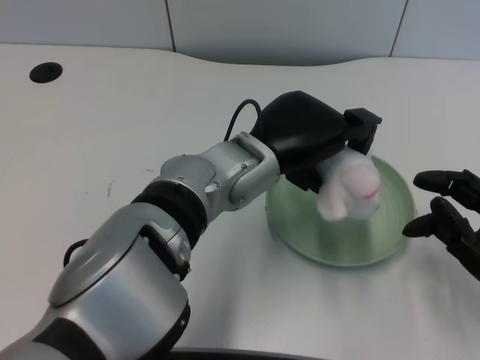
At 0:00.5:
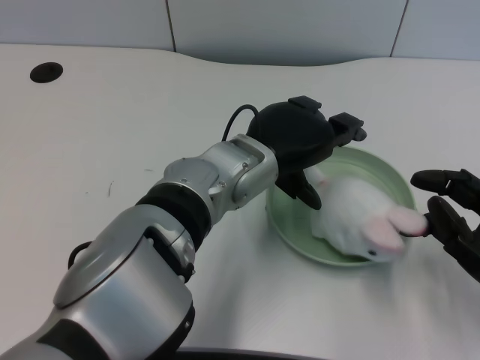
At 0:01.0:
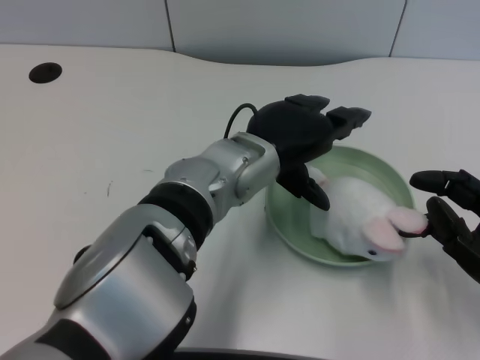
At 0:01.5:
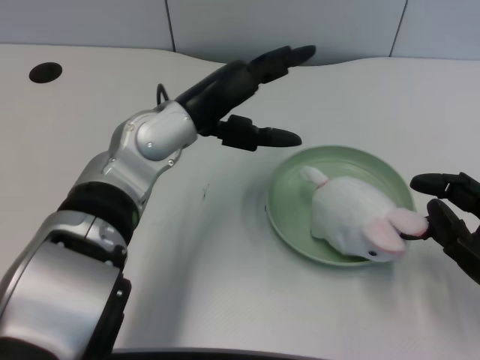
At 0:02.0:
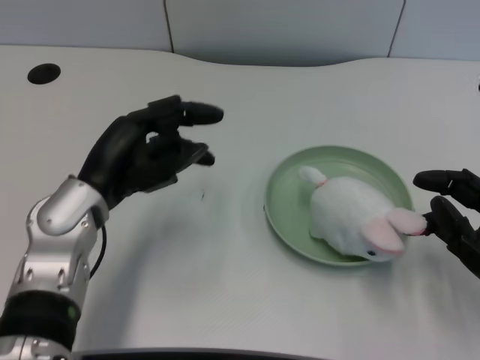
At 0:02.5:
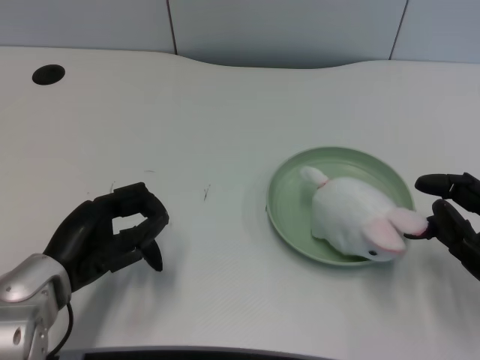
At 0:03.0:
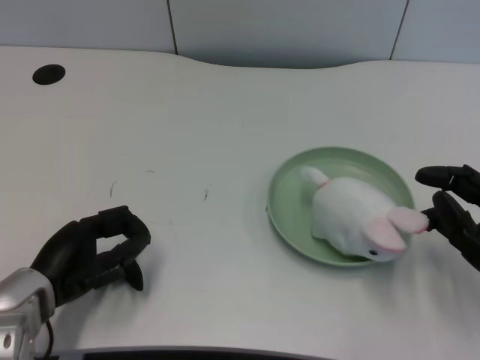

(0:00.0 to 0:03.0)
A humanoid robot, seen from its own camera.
Task of the whole recording: pick up the rabbit doll from the table and place it on the plate.
0:00.0 - 0:01.5: The left hand is displaced to the left by about 10 cm.
0:01.5 - 0:03.0: The left hand heads to the left, downward and backward, covering some 20 cm.

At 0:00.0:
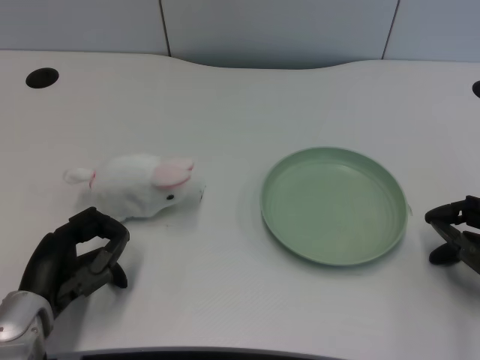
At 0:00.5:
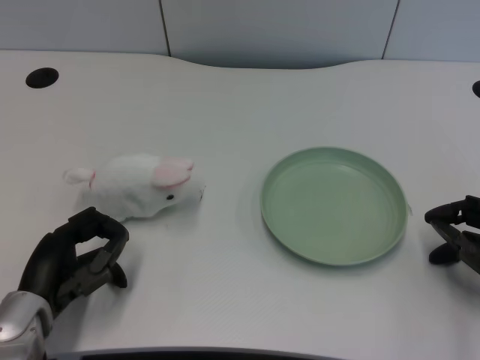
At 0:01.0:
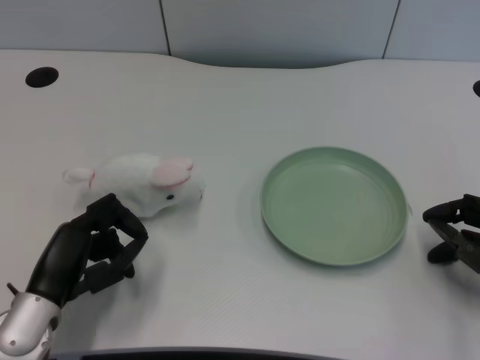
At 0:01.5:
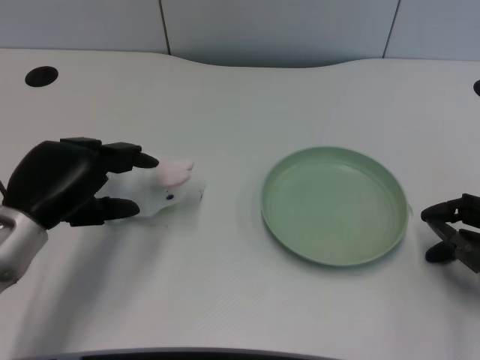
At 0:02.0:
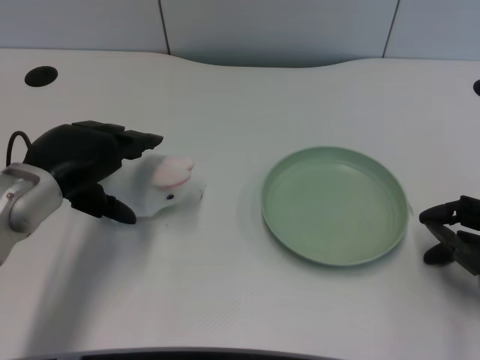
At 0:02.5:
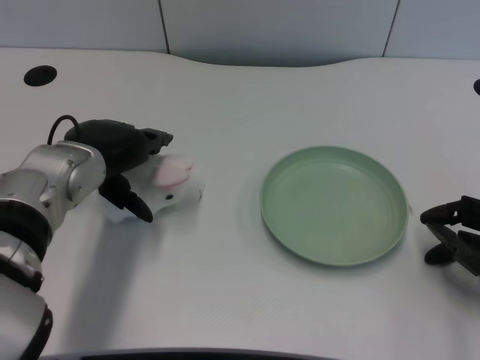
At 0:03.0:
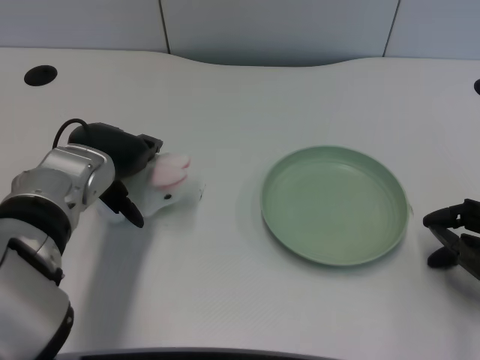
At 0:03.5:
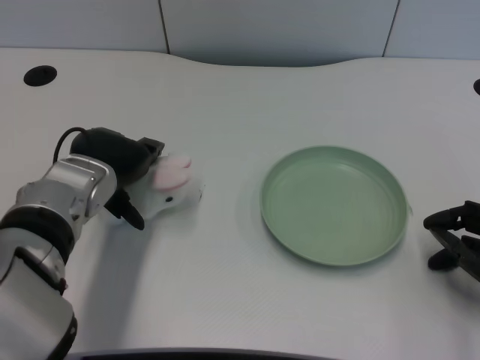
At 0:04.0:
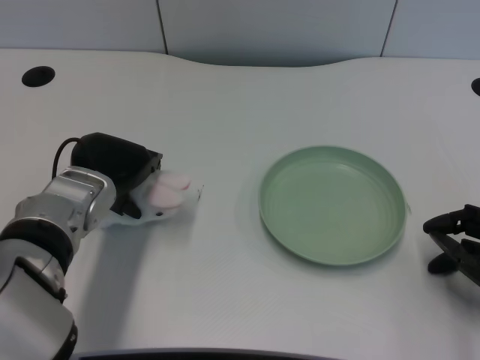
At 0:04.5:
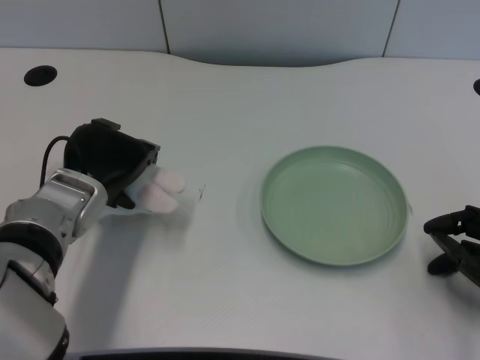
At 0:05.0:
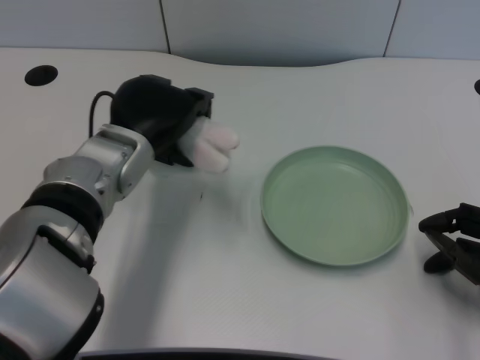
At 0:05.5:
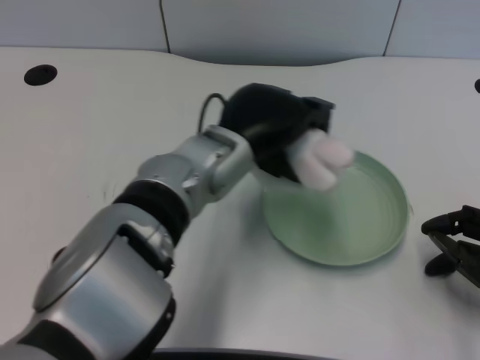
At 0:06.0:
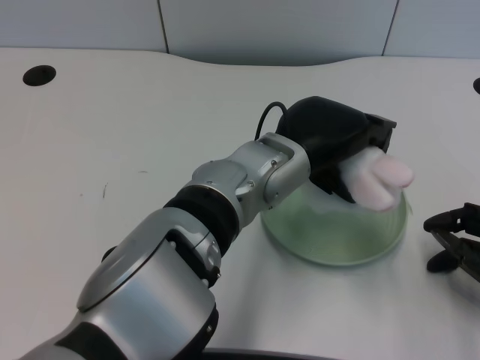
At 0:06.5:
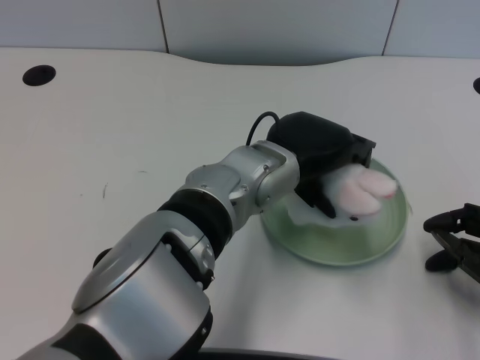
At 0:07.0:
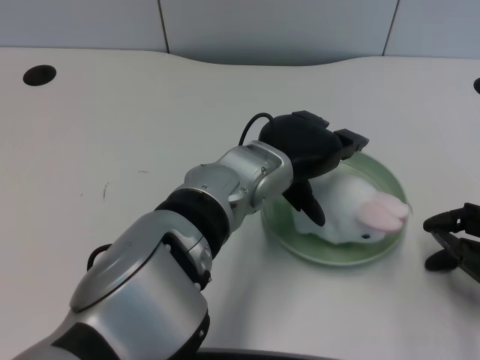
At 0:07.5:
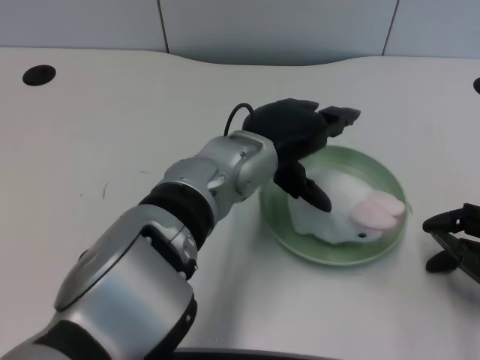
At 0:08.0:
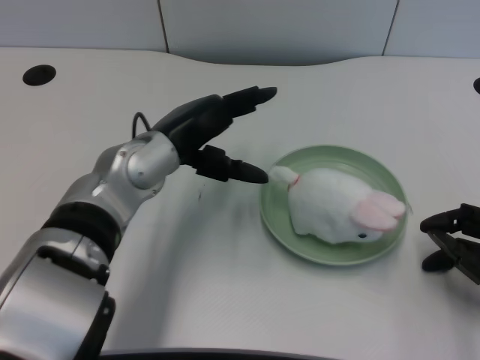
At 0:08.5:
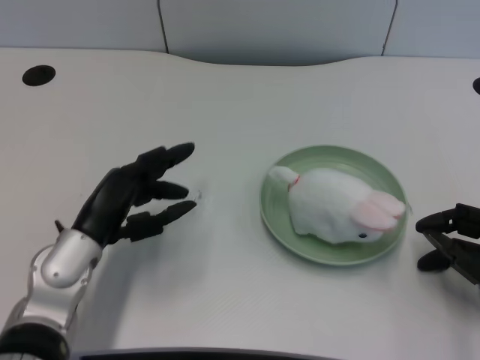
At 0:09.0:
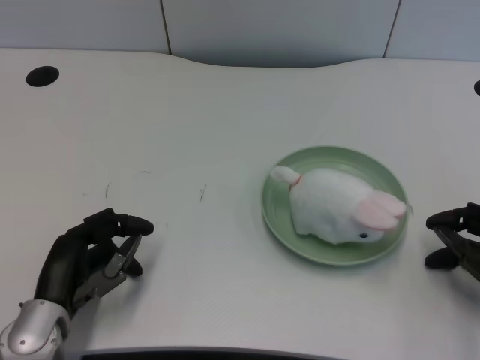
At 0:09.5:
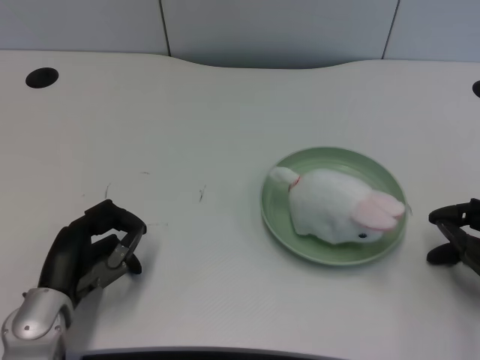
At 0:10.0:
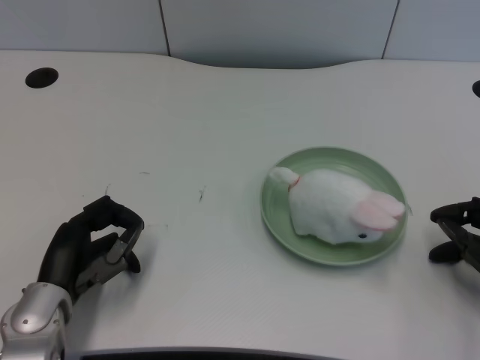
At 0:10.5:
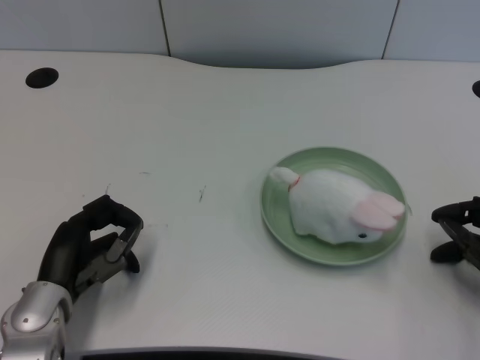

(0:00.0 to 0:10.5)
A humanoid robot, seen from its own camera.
Task of the whole recording: pick up the rabbit doll from the table and place it on the plate.
Step, 0:01.0 - 0:04.0: Grasp the rabbit doll with the left gripper.
Step, 0:04.5 - 0:07.0: Place the rabbit doll into the plate with the left gripper.
0:02.0 - 0:04.0: The left hand moves approximately 5 cm.
0:04.0 - 0:06.5: The left hand goes about 15 cm to the right.
0:06.5 - 0:08.5: The left hand moves to the left and downward, about 20 cm.
0:08.5 - 0:10.5: The left hand shifts by approximately 5 cm.

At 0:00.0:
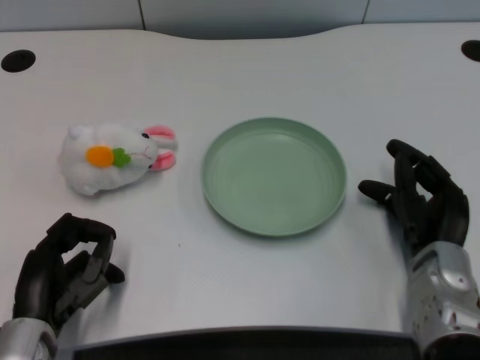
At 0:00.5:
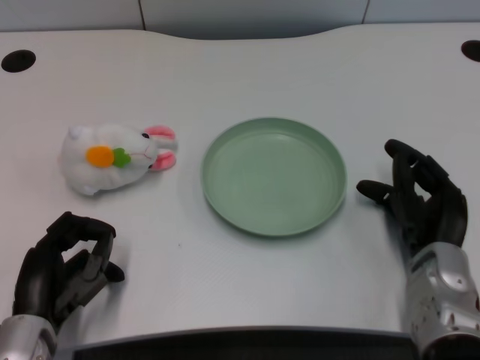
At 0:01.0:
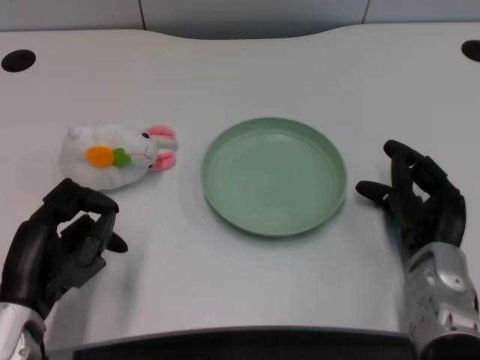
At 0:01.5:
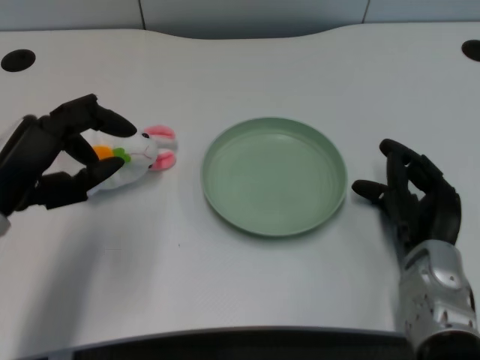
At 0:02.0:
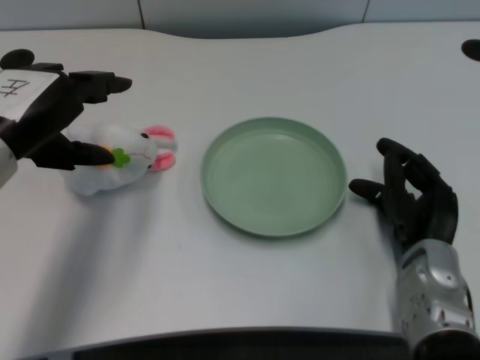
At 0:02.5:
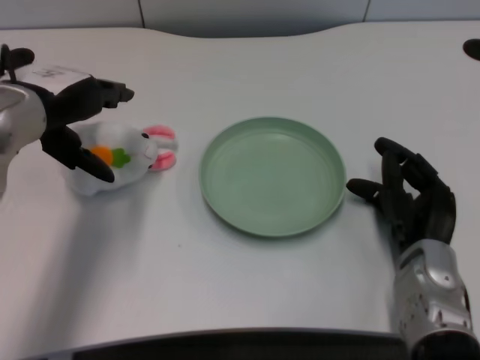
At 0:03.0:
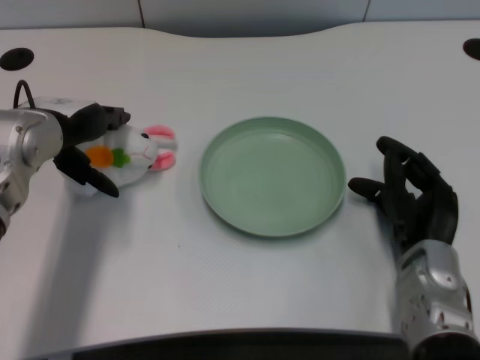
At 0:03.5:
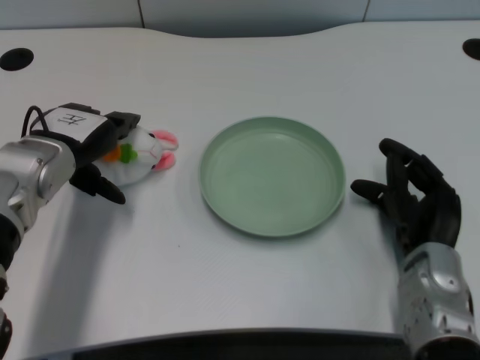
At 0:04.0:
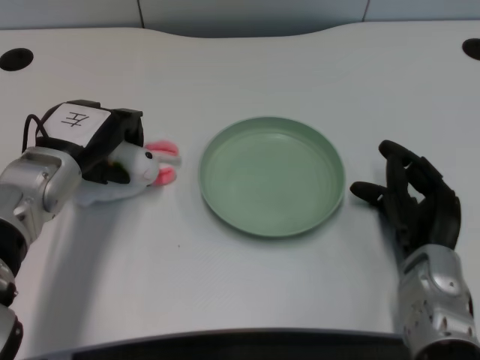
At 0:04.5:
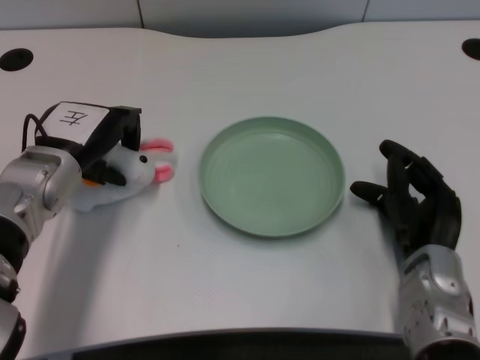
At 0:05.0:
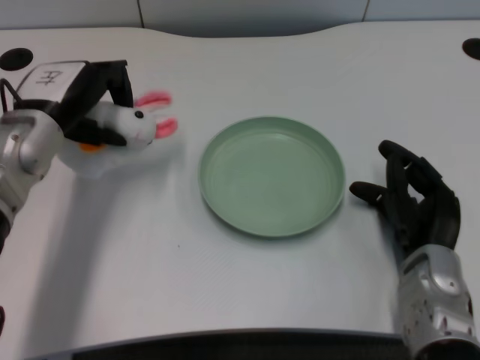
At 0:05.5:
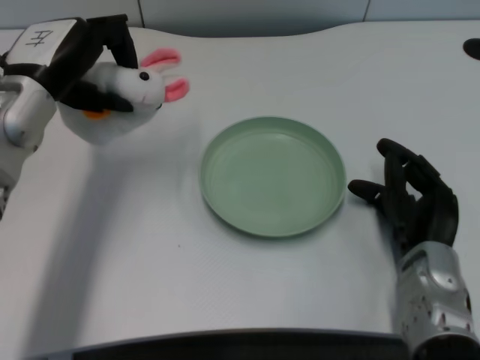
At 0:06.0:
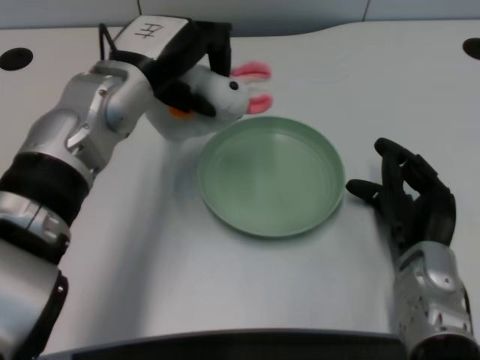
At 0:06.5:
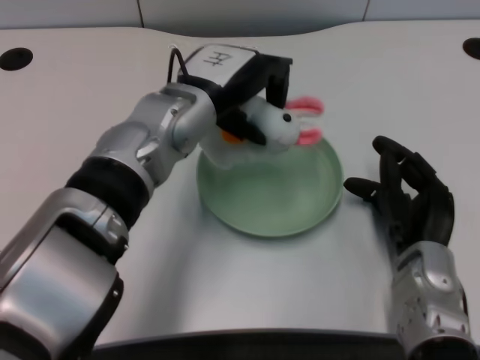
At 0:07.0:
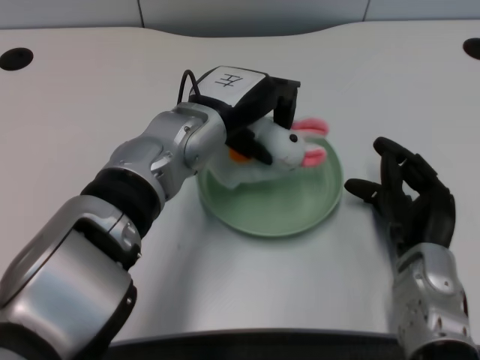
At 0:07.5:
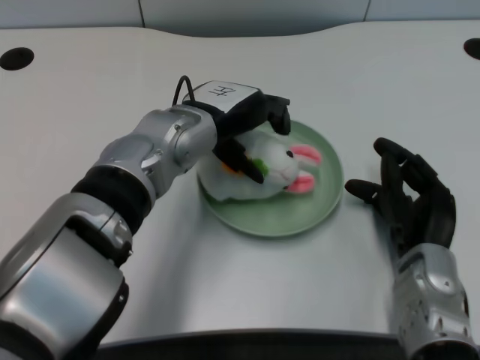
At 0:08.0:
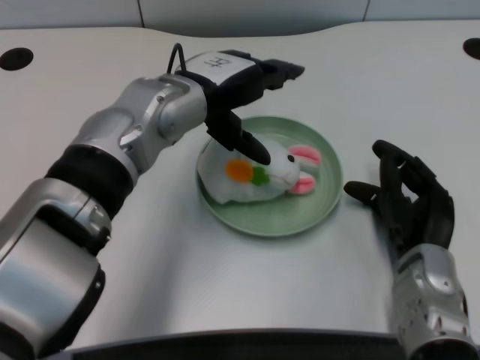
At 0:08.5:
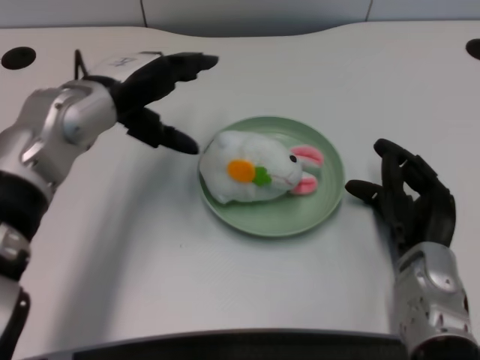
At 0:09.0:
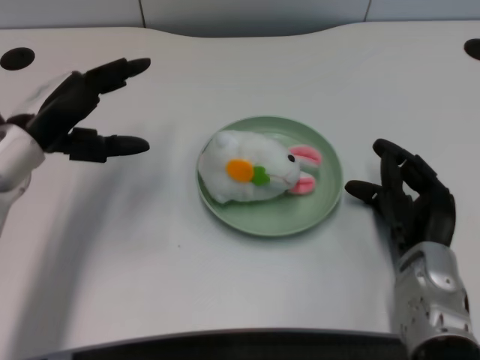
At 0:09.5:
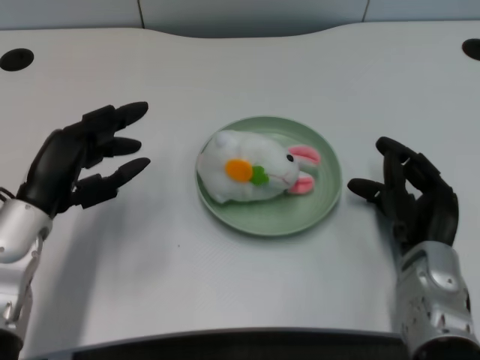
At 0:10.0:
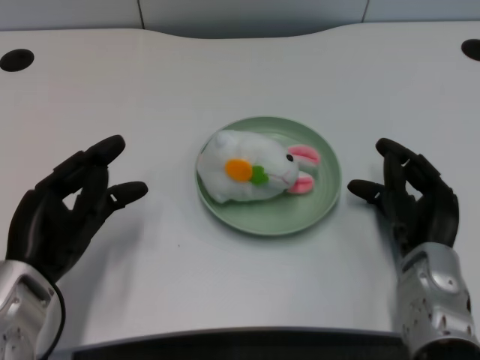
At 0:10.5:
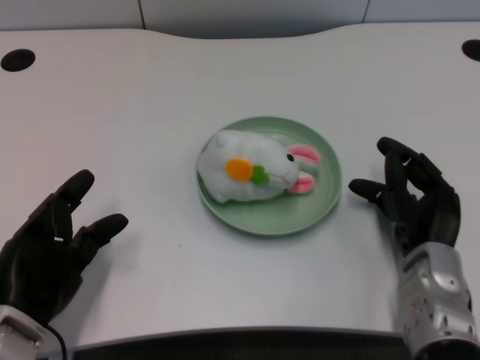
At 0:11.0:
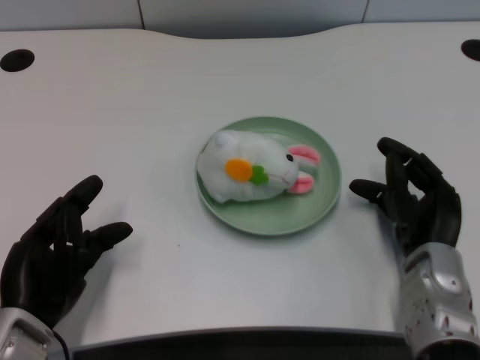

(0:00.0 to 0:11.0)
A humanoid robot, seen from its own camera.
Task of the whole recording: pick up the rabbit doll from the table and place it on the plate.
Step, 0:01.0 - 0:04.5: Grasp the rabbit doll with the left gripper.
Step, 0:05.0 - 0:07.5: Place the rabbit doll into the plate with the left gripper.
0:02.0 - 0:03.5: The left hand is displaced downward and forward by some 10 cm.
0:03.5 - 0:05.5: The left hand heads upward, covering approximately 5 cm.
0:05.5 - 0:07.5: The left hand moves to the right, roughly 15 cm.
0:07.5 - 0:09.0: The left hand goes approximately 15 cm to the left.
0:09.0 - 0:11.0: The left hand moves backward and downward, some 15 cm.
